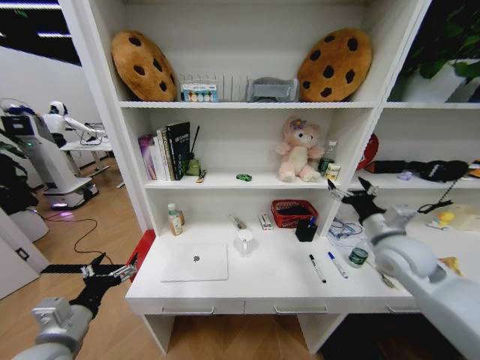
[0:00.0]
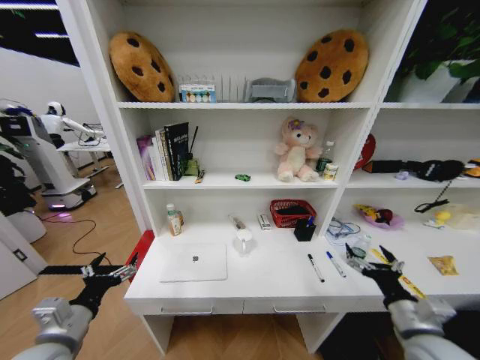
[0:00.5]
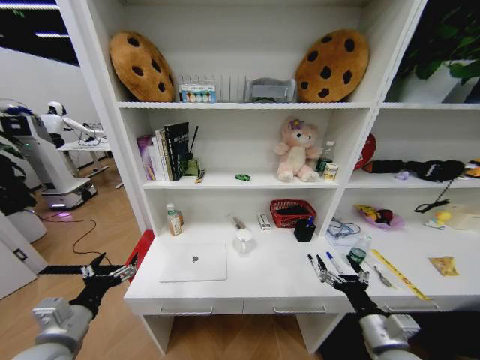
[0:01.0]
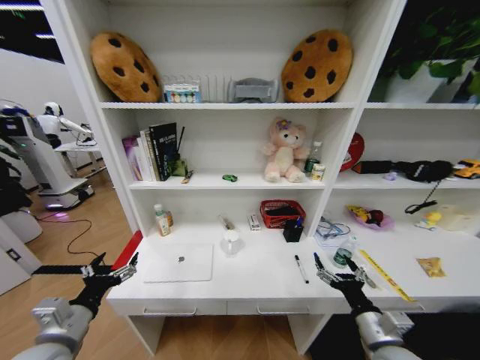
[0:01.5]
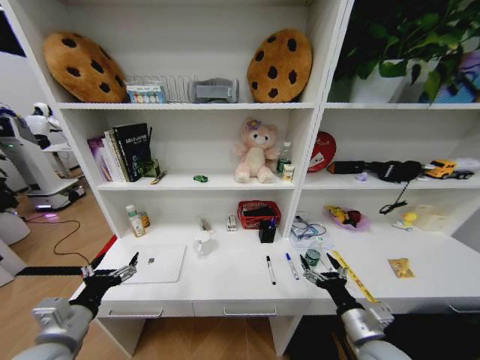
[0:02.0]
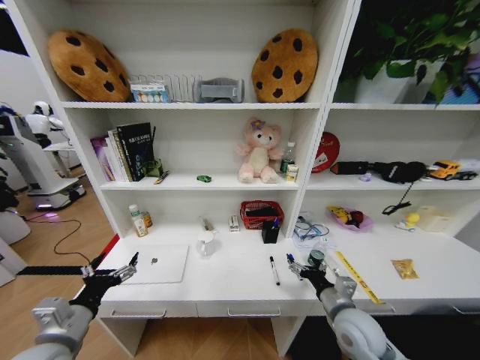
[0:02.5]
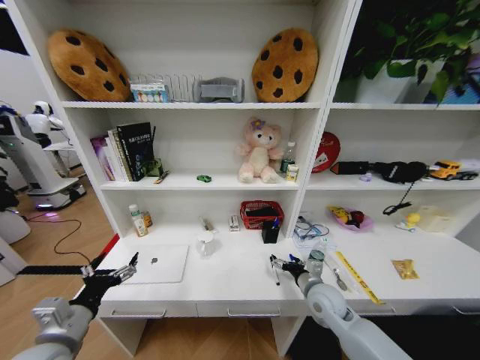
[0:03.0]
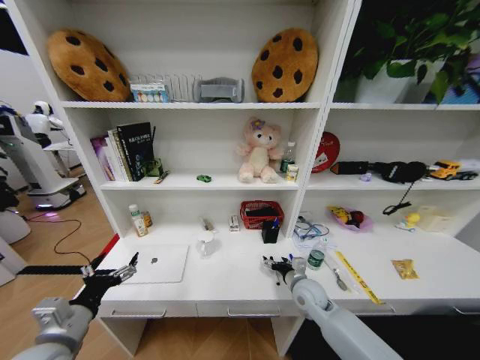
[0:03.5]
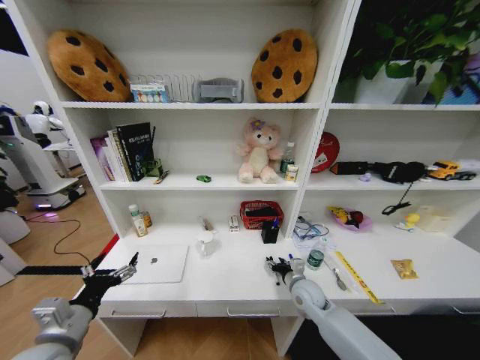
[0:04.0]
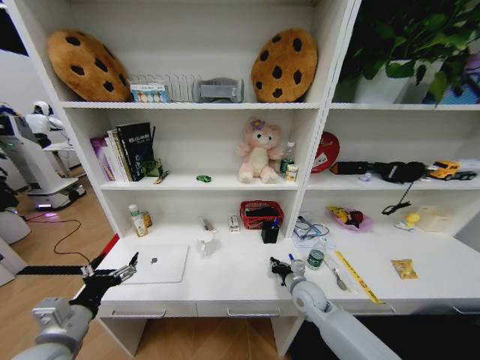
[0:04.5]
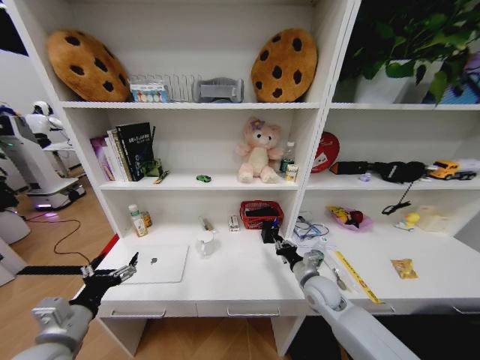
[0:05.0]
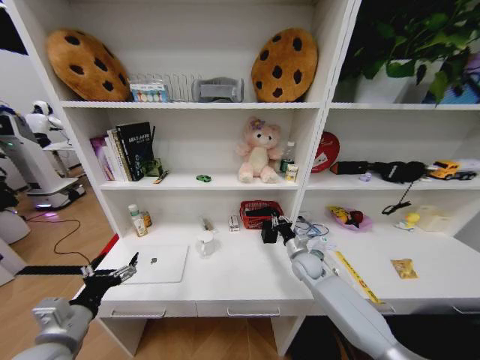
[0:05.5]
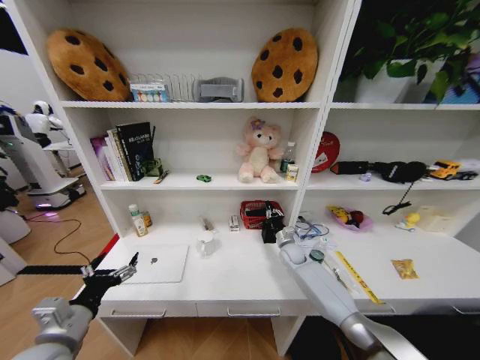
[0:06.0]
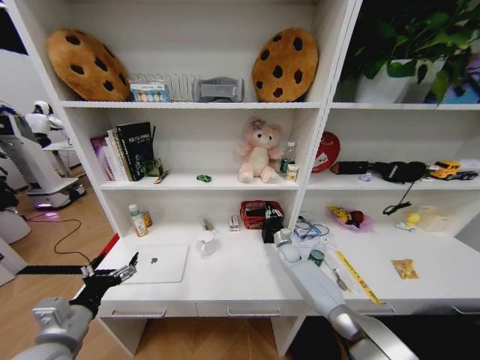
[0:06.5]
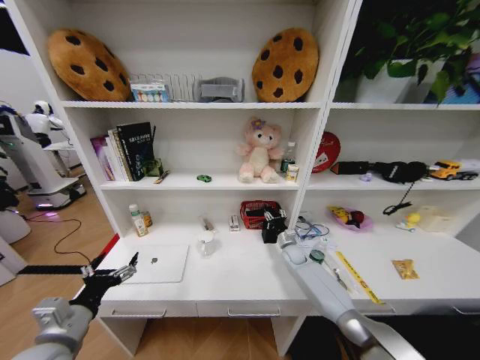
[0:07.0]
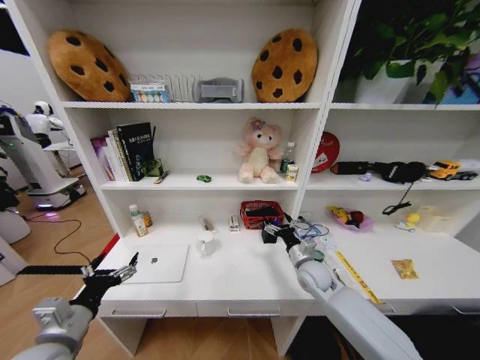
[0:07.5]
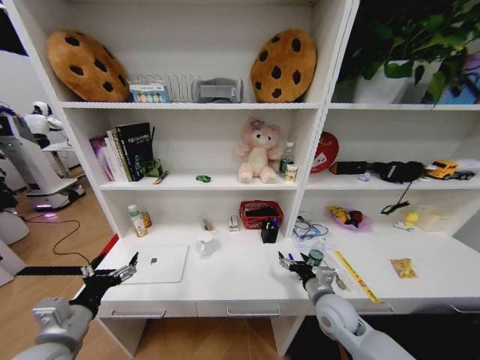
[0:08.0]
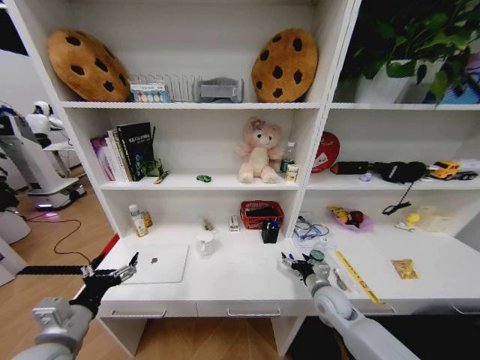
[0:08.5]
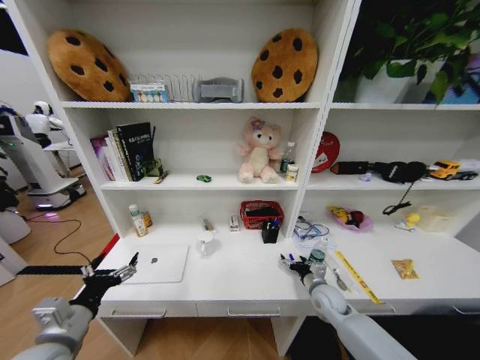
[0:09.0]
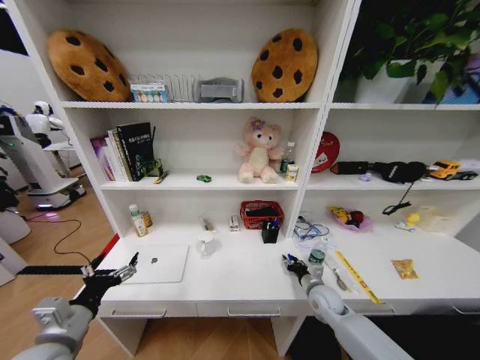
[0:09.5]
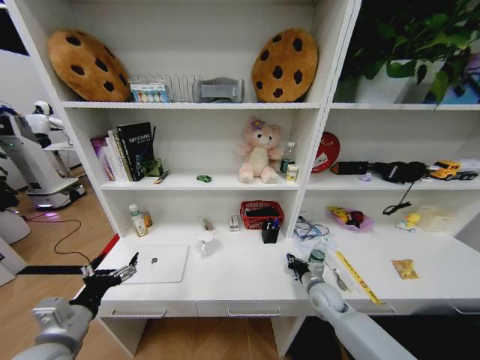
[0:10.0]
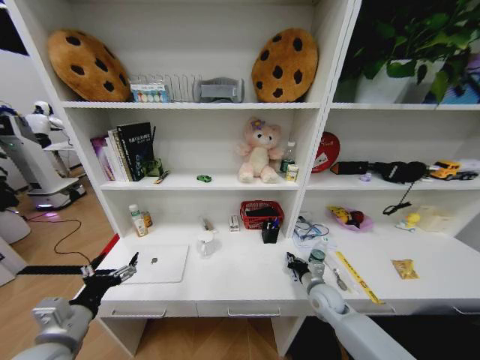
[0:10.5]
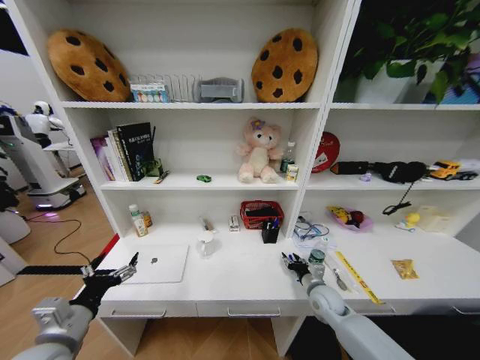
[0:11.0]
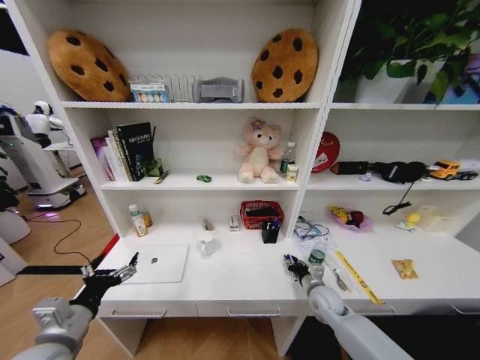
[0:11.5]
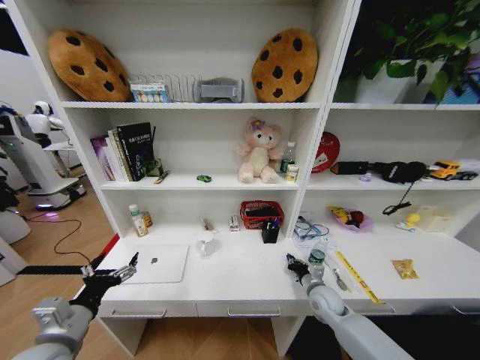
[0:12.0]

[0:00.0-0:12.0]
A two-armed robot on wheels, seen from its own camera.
Task of the whole recording: Organize the objects on the table.
0:00.0 to 0:02.0: The right gripper shifts roughly 25 cm downward and backward.
0:02.0 to 0:04.0: The right gripper moves forward and to the left, roughly 20 cm.
0:04.0 to 0:06.0: The right gripper is displaced forward by some 15 cm, and closes its fingers.
0:06.0 to 0:08.0: The right gripper heads backward, covering roughly 20 cm, and opens its fingers.
0:08.0 to 0:10.0: The right gripper goes some 10 cm forward and downward, and closes its fingers.

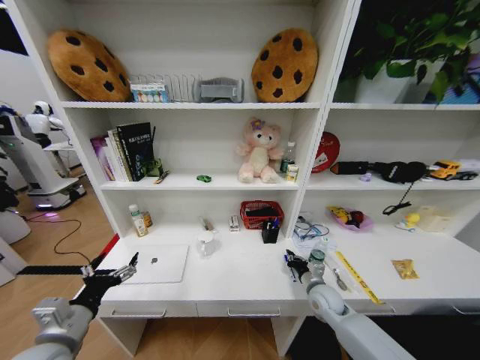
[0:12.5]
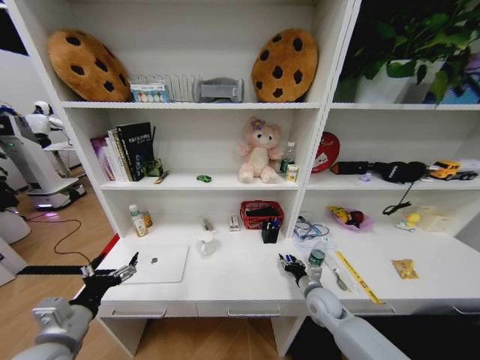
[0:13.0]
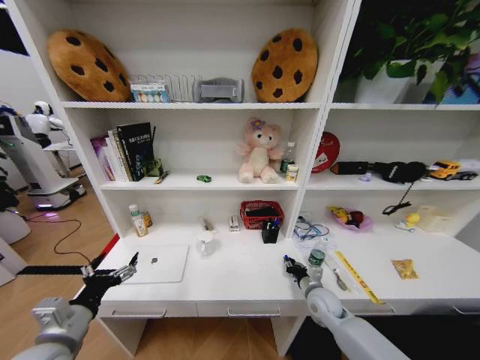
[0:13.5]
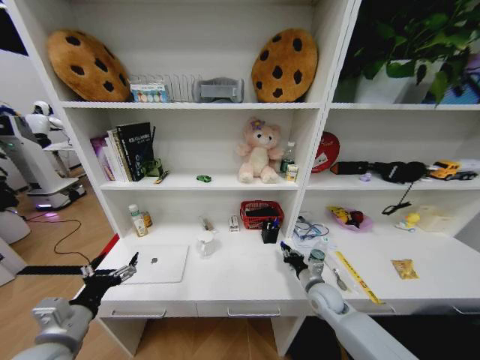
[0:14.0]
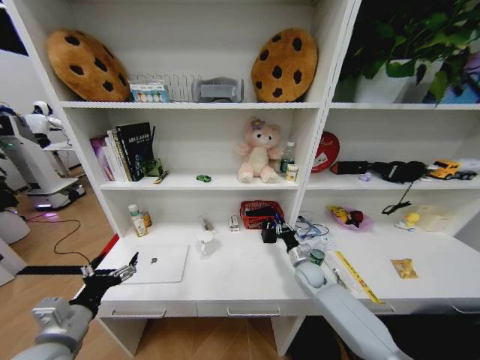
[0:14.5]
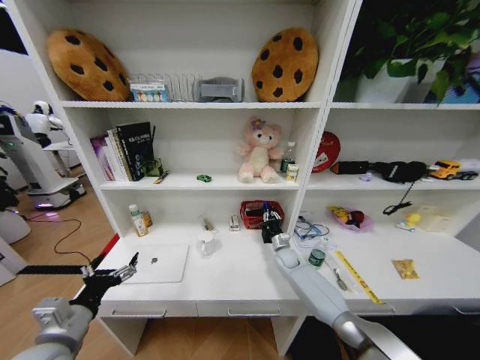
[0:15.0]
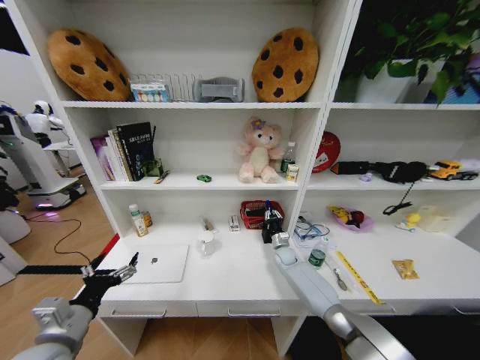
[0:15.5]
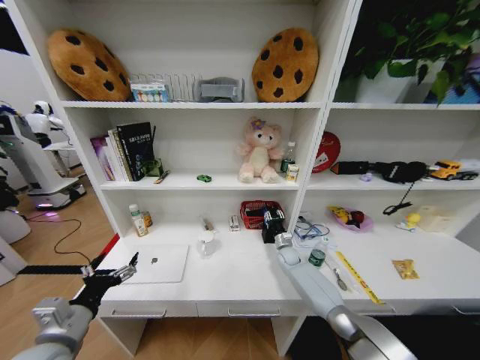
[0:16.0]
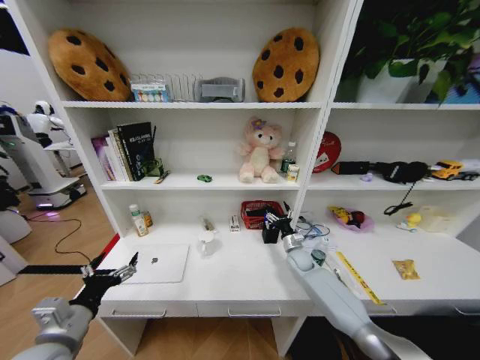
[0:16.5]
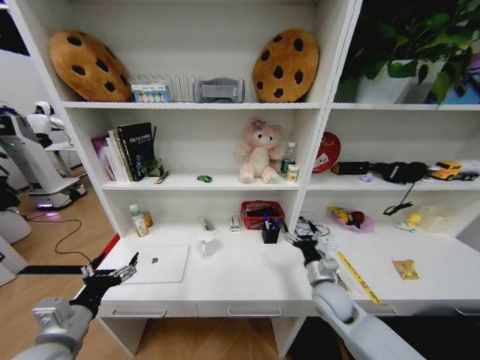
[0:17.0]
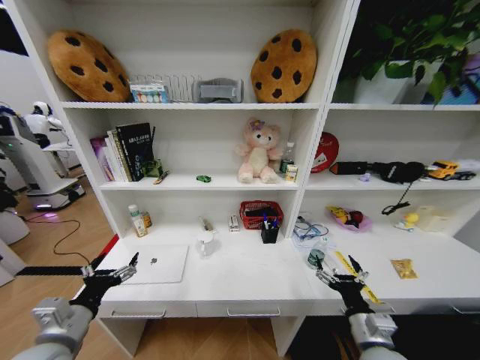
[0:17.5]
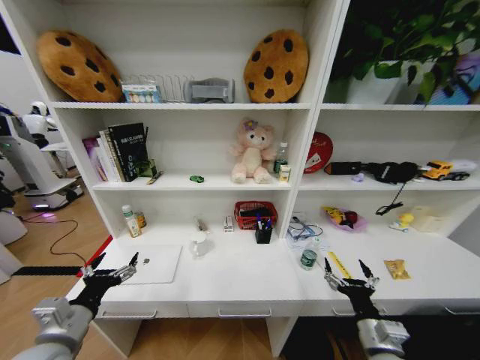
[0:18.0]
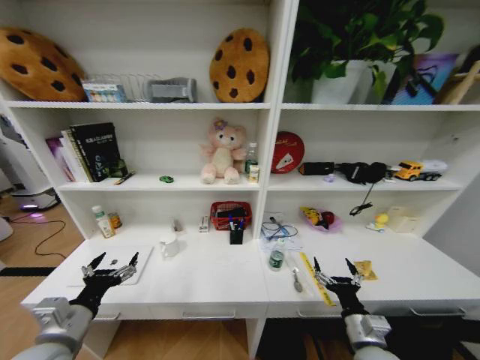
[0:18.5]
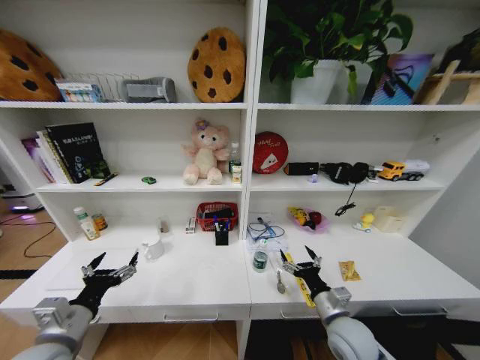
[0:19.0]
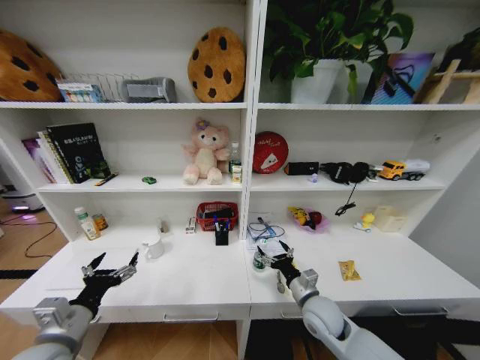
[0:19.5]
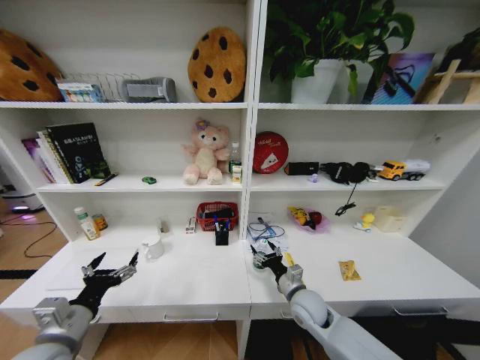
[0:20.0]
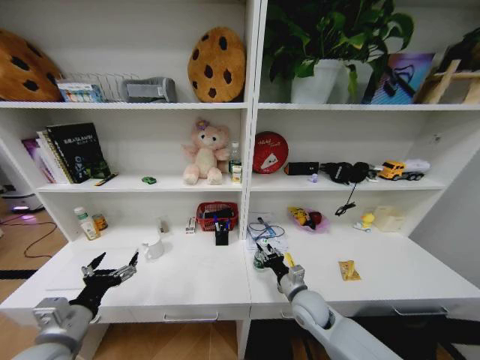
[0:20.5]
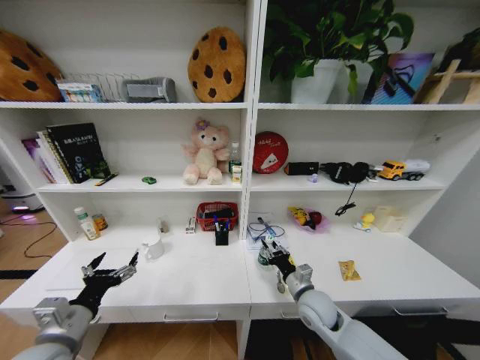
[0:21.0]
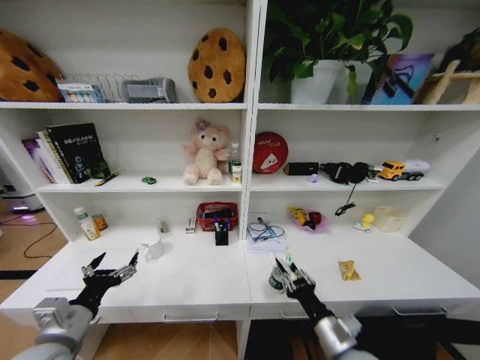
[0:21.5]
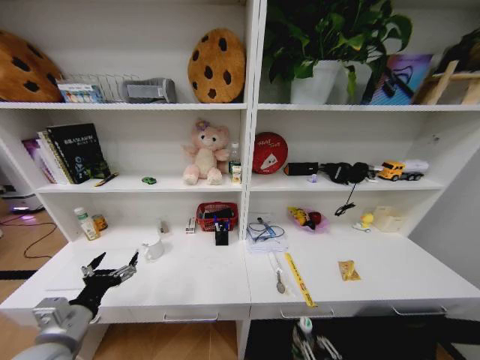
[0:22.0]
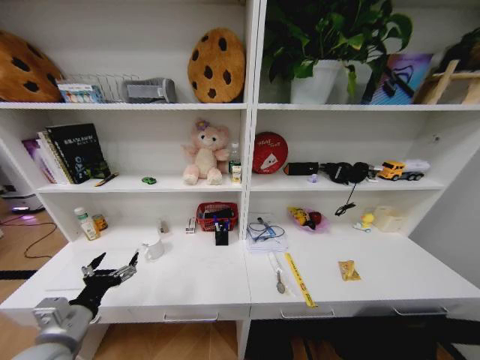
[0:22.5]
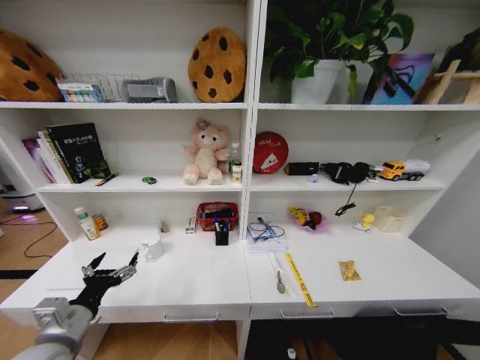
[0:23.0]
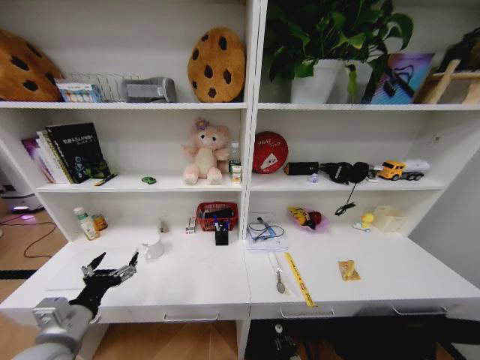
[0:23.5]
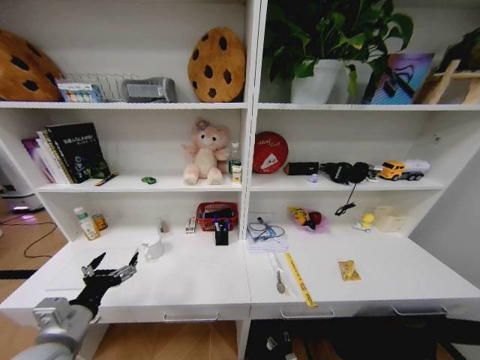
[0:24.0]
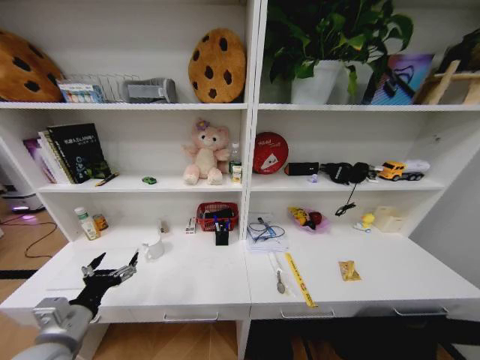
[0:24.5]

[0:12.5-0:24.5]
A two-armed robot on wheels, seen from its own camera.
Task of the whole recording: Organize the objects on the table.
0:12.5 to 0:14.5: The right gripper shifts roughly 10 cm forward, and opens, then closes once more.
0:14.5 to 0:16.5: The right gripper opens up.
0:16.5 to 0:18.5: The right gripper is displaced backward by approximately 30 cm.
0:18.5 to 0:20.5: The right gripper travels forward and to the left by roughly 15 cm, and closes.
0:20.5 to 0:22.5: The right gripper is displaced backward, downward and to the right by some 40 cm.

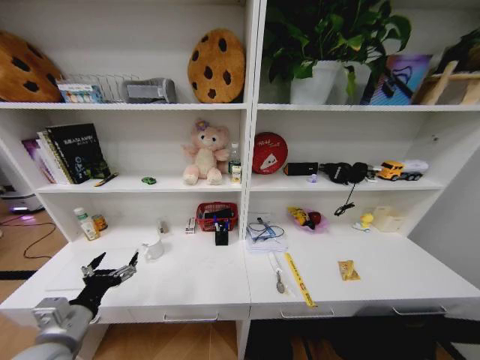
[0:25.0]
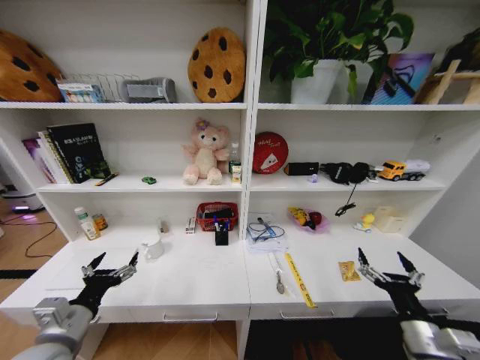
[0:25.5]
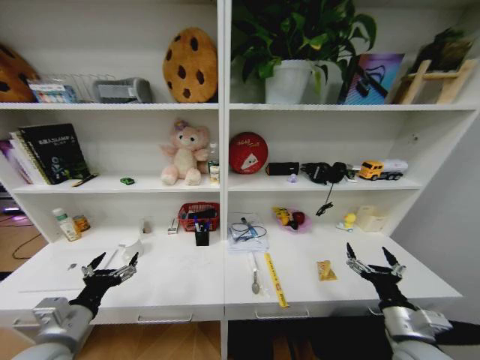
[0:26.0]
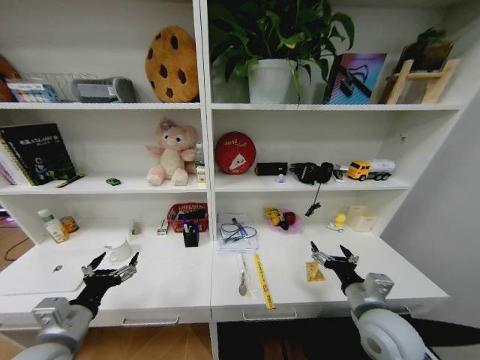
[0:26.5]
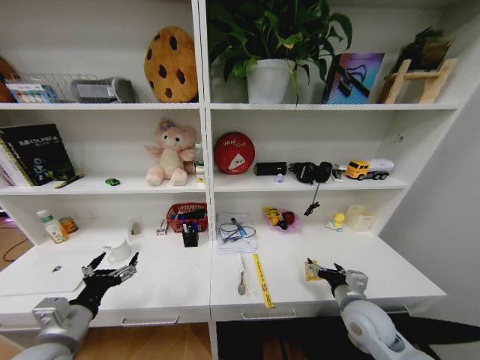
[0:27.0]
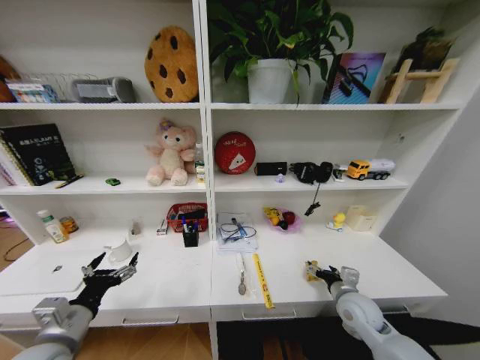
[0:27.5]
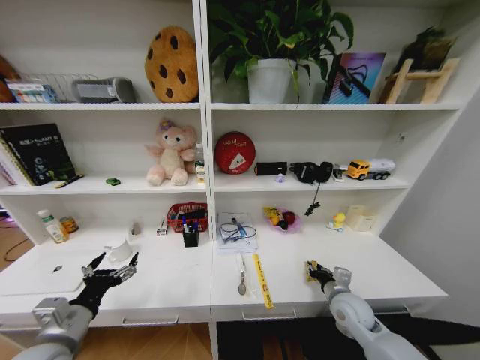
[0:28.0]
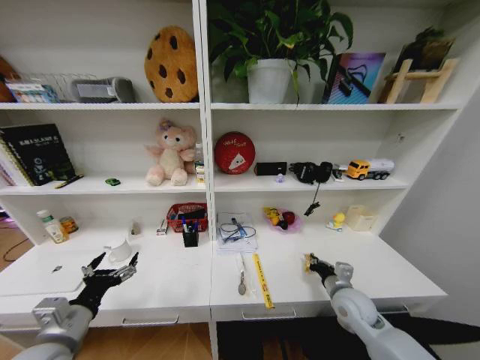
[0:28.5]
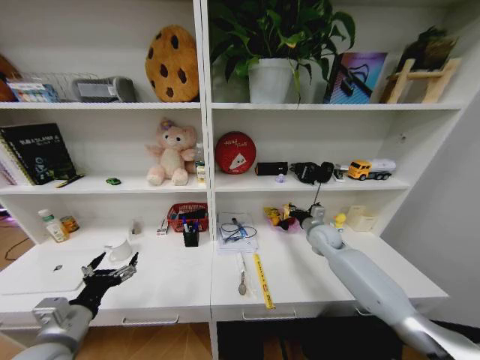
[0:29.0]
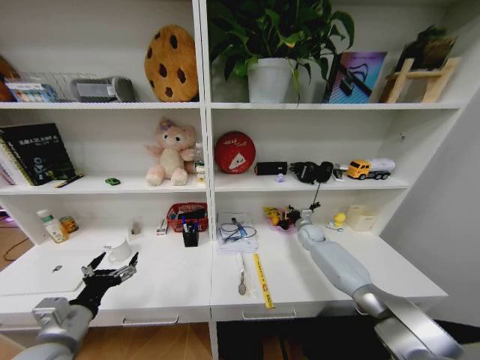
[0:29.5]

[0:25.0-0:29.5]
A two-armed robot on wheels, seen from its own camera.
Task of the whole recording: Organize the objects on the table.
0:25.0 to 0:27.0: The right gripper heads forward, covering some 30 cm.
0:27.0 to 0:29.5: The right gripper is displaced forward by about 30 cm, and closes up.
